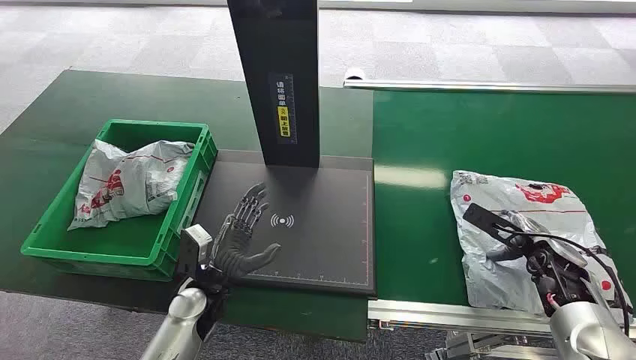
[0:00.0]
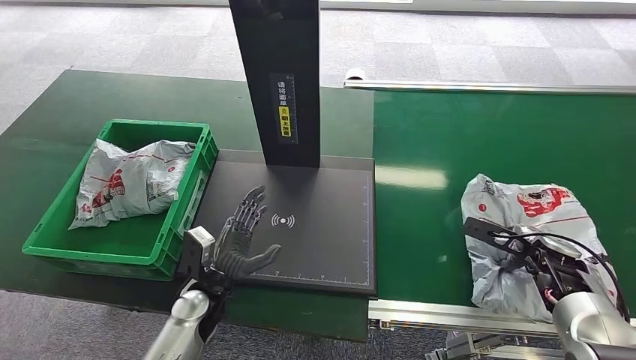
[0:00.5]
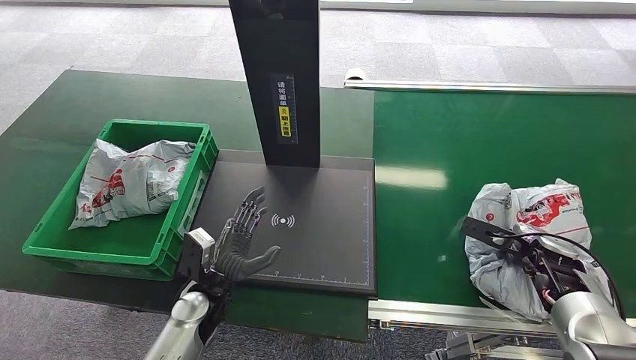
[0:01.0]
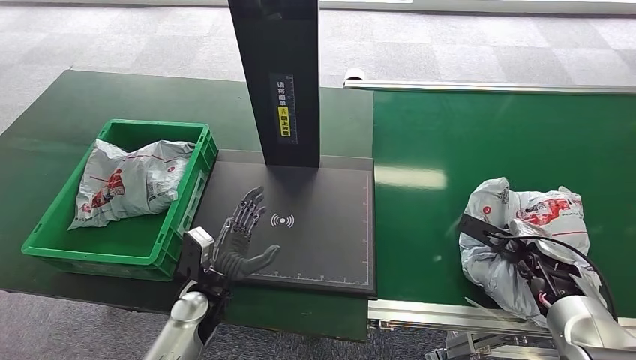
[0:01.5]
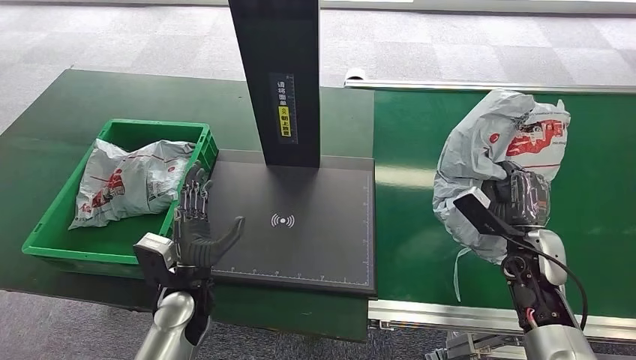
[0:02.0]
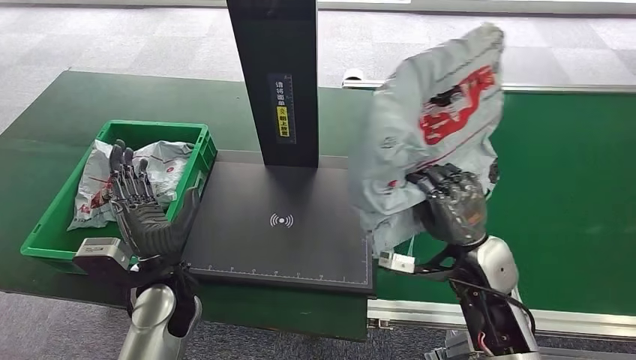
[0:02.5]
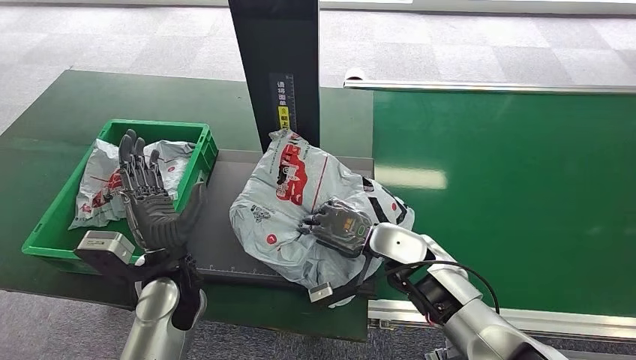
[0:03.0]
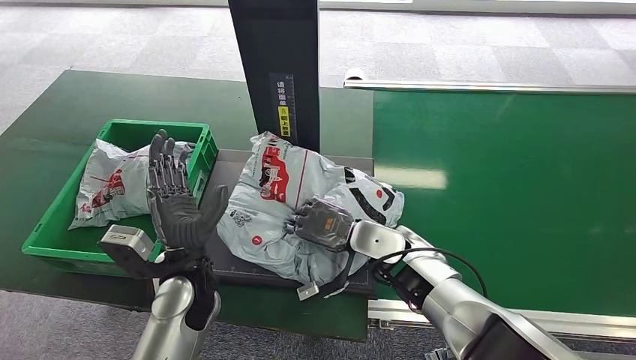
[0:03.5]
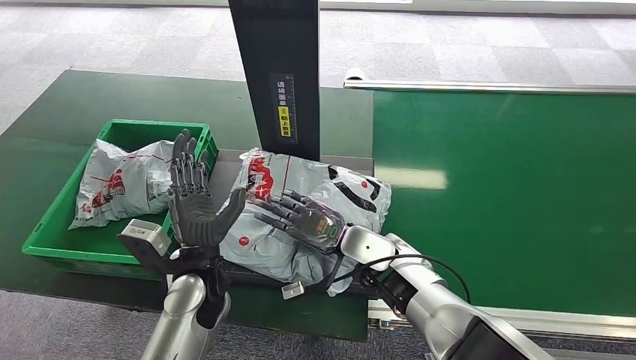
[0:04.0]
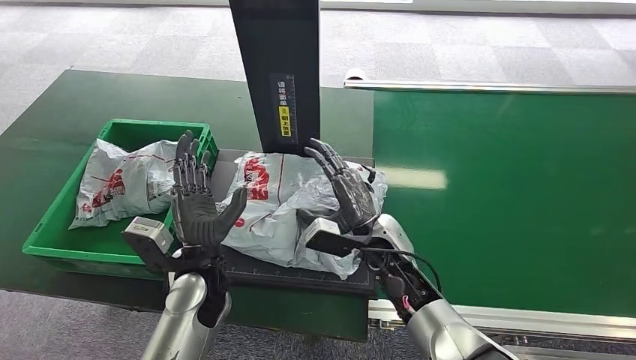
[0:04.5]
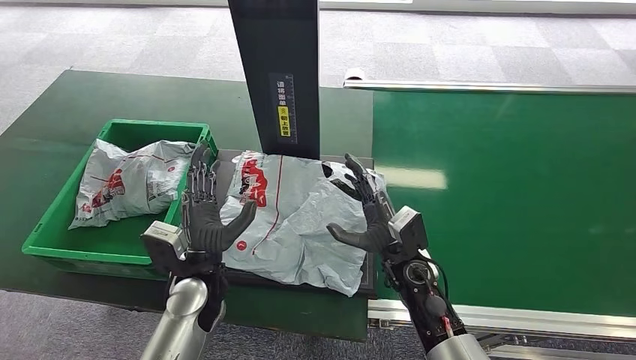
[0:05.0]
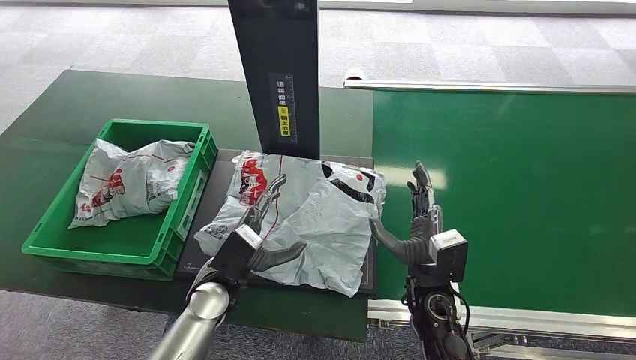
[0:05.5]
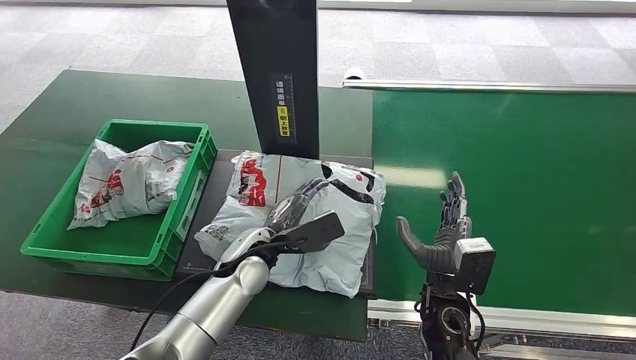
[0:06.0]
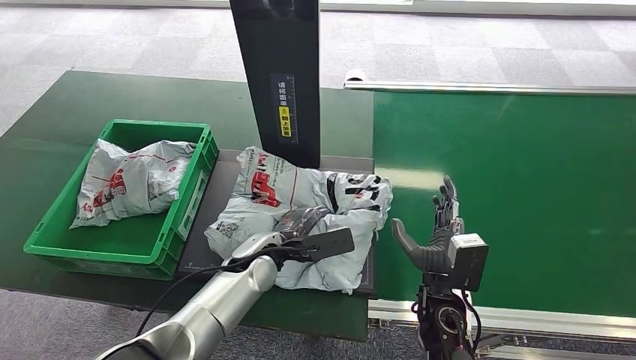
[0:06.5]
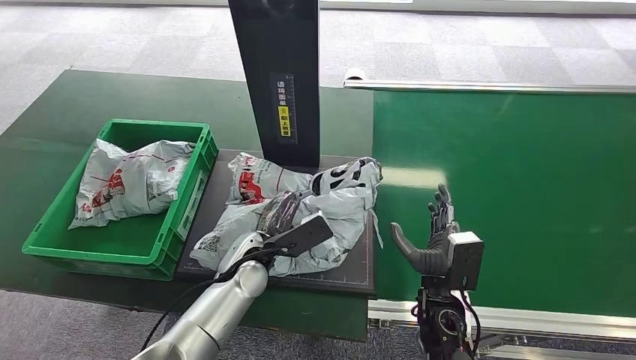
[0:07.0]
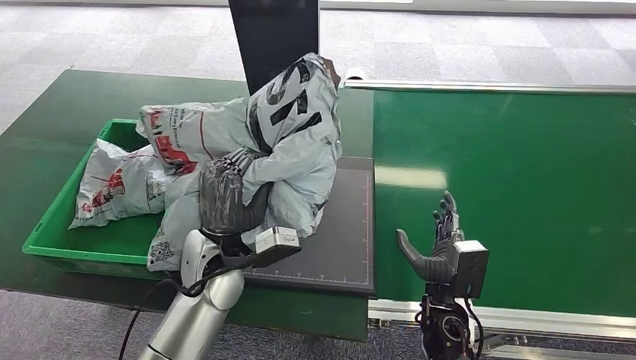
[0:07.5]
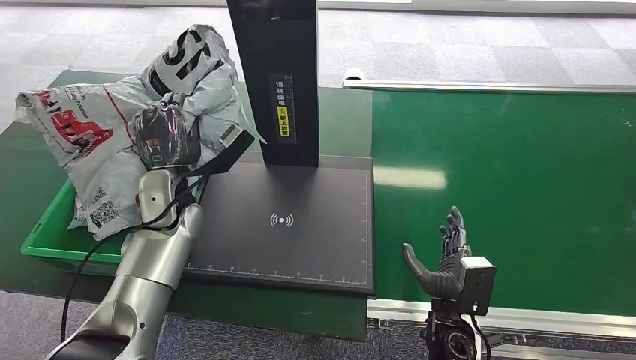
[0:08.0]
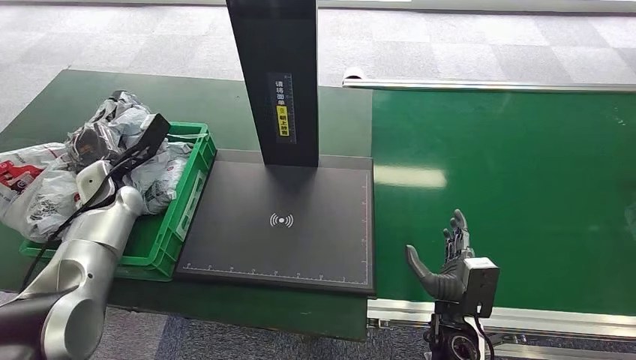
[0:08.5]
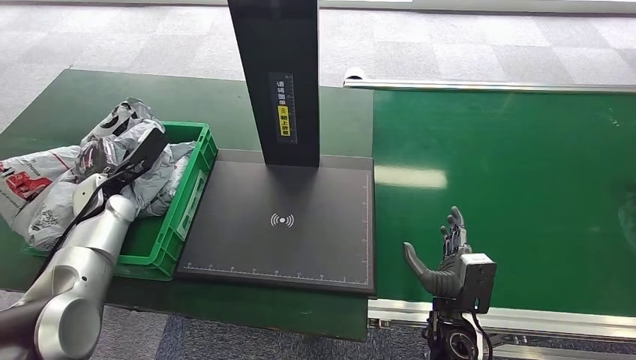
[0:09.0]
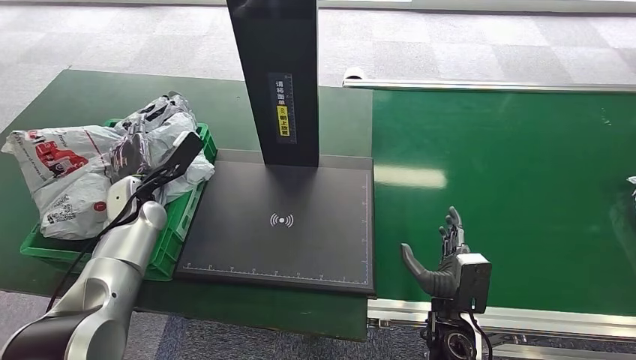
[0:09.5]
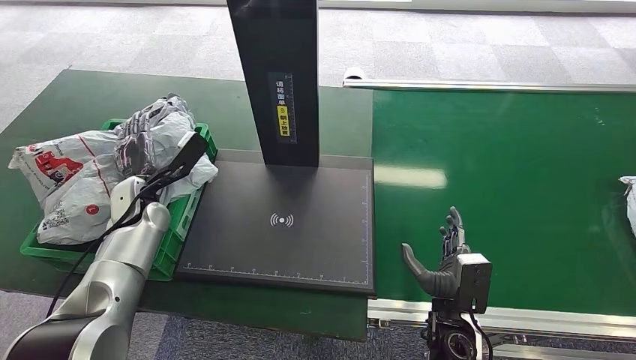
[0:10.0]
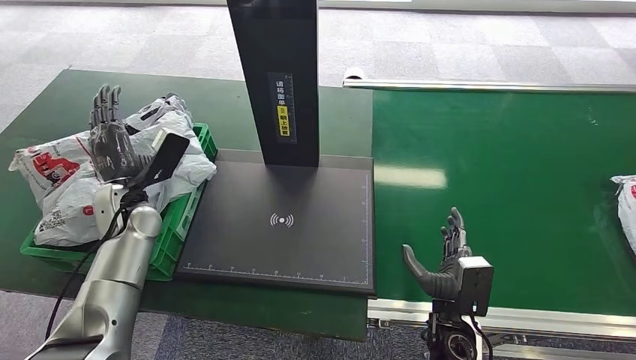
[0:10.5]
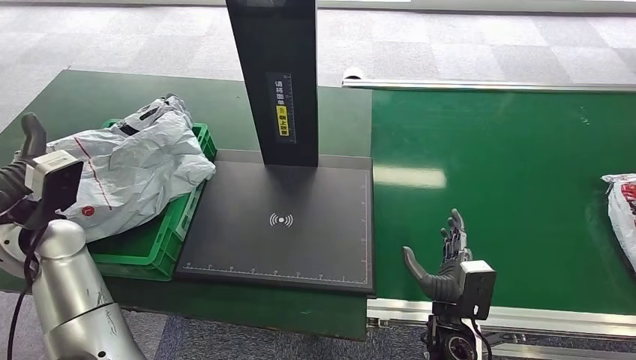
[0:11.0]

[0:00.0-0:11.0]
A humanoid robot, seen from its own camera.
Step, 0:00.0 to 0:02.0: Pick up the package from the conveyor belt.
Step, 0:02.5 to 0:05.0: Place the package onto the inbound machine.
Step, 0:05.5 to 0:07.5: Pick up the package from the inbound machine.
Step, 0:08.0 to 0:11.0: Place the package into the parcel locker.
0:03.5 to 0:05.5: The right hand moves backward and to the right, about 10 cm; the left hand travels downward by roughly 5 cm.
0:05.5 to 0:07.5: The left hand is displaced upward by roughly 10 cm.
0:09.0 to 0:11.0: The left hand goes roughly 15 cm upward and backward.

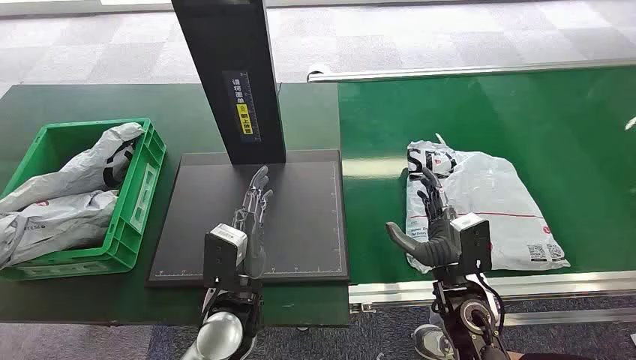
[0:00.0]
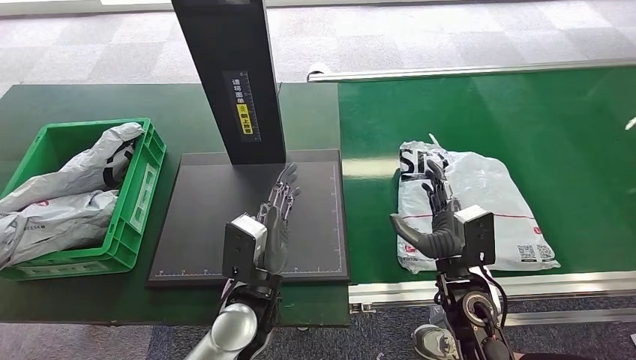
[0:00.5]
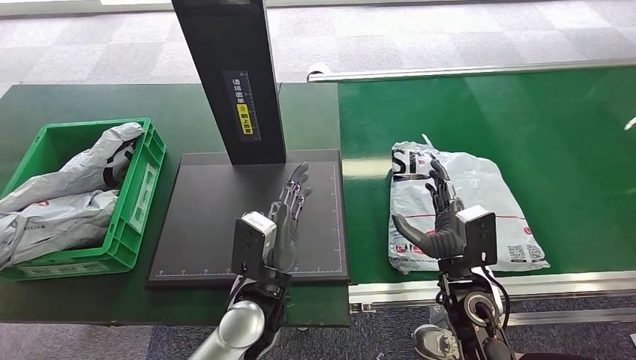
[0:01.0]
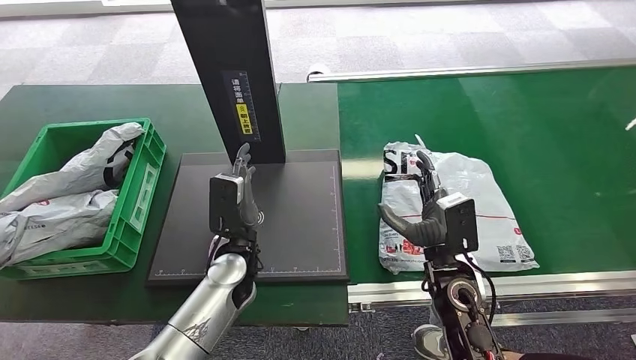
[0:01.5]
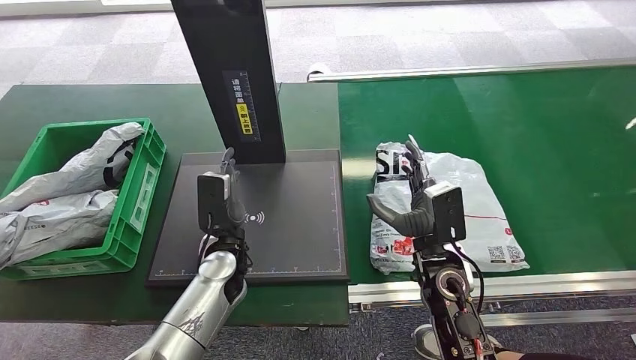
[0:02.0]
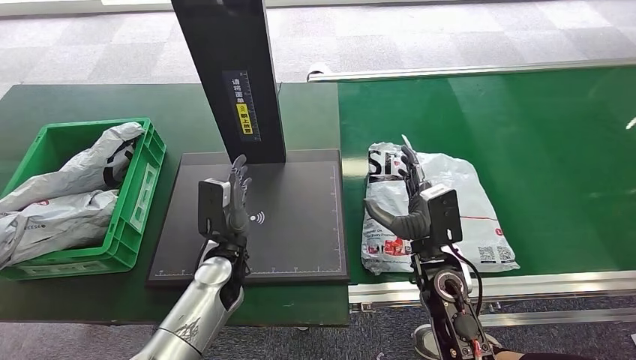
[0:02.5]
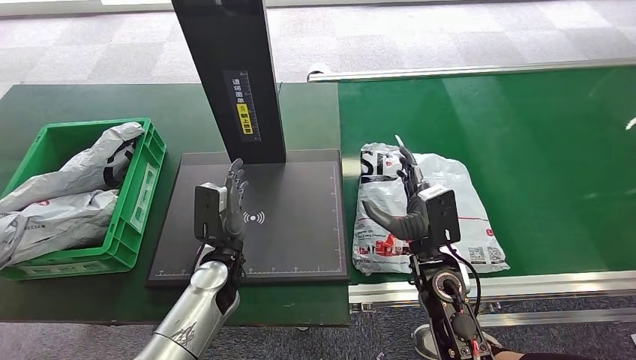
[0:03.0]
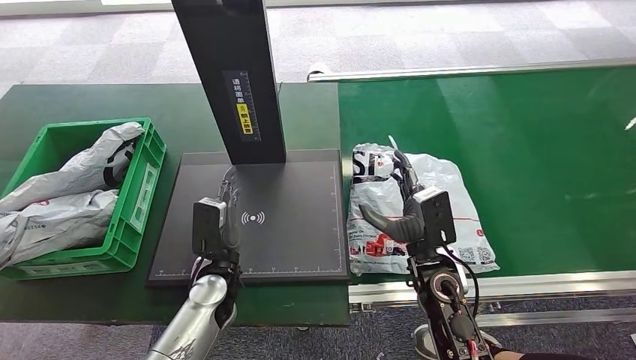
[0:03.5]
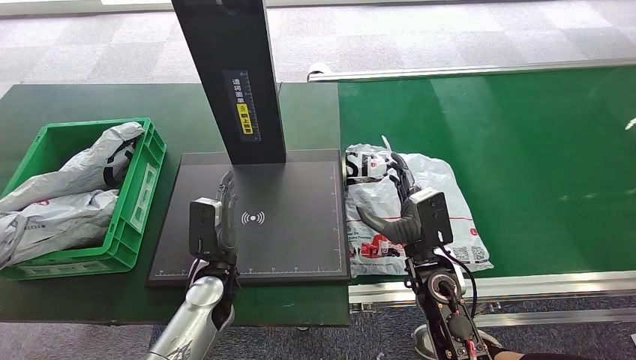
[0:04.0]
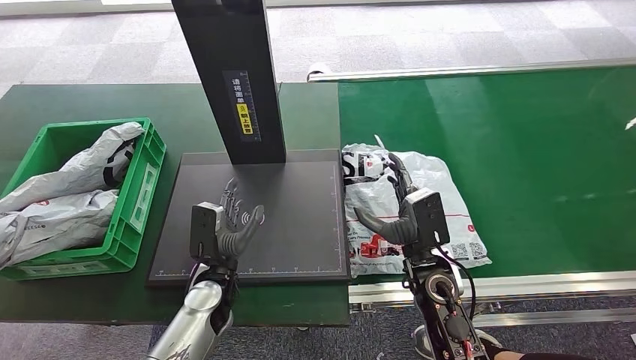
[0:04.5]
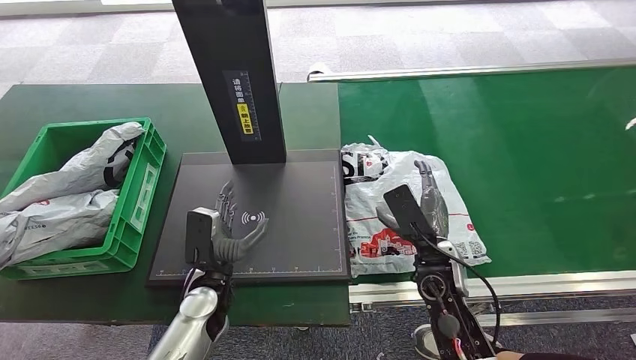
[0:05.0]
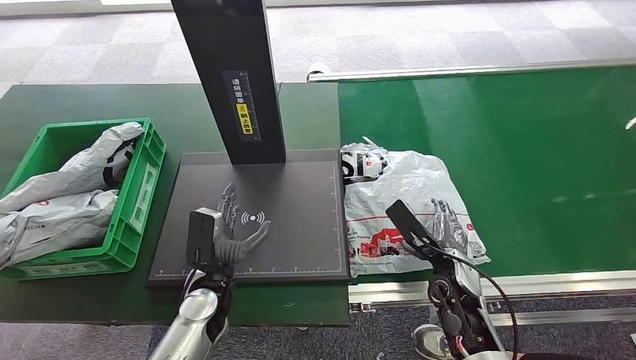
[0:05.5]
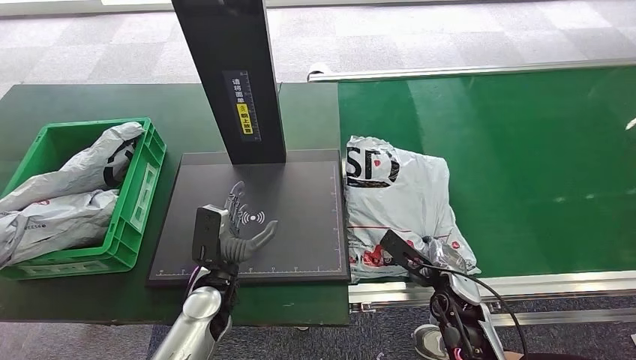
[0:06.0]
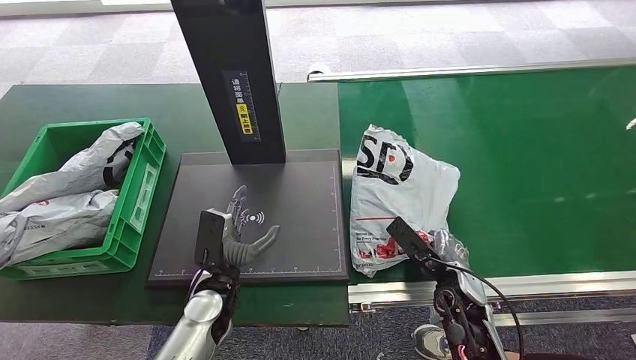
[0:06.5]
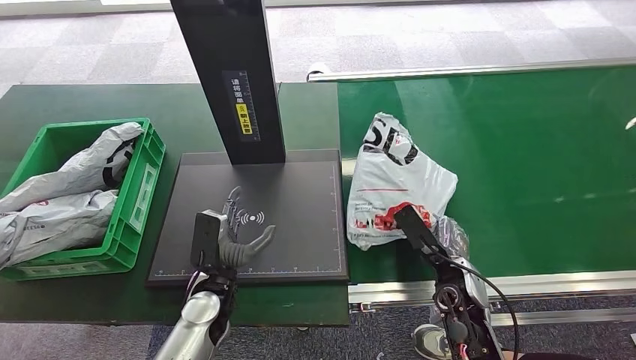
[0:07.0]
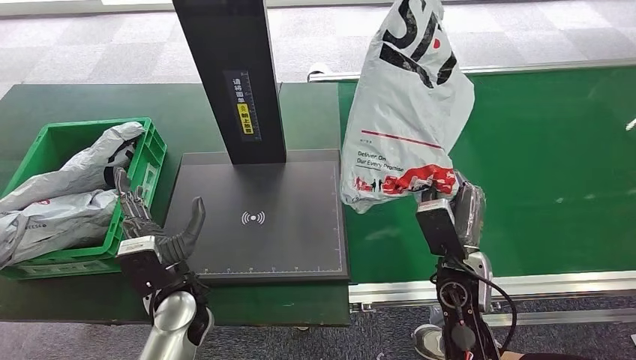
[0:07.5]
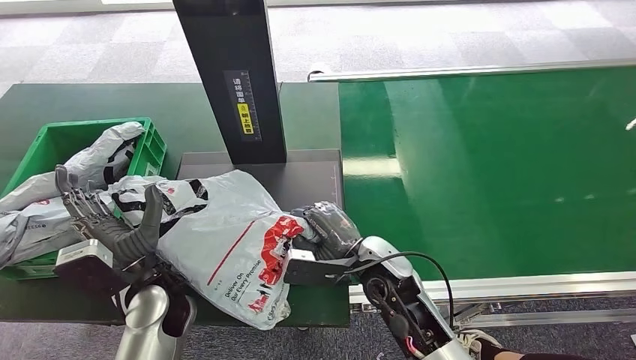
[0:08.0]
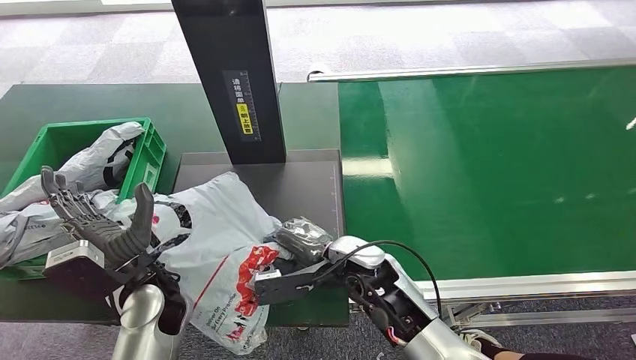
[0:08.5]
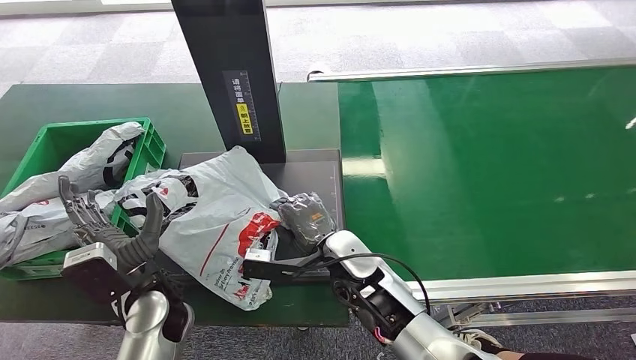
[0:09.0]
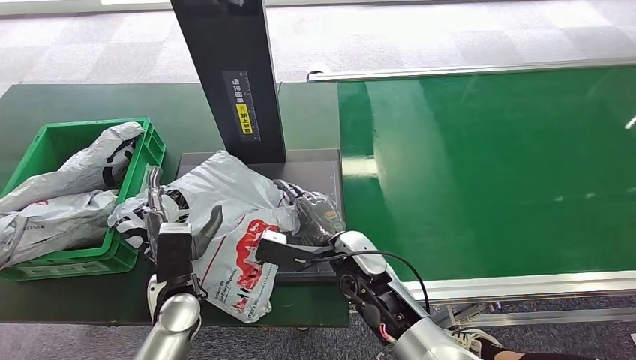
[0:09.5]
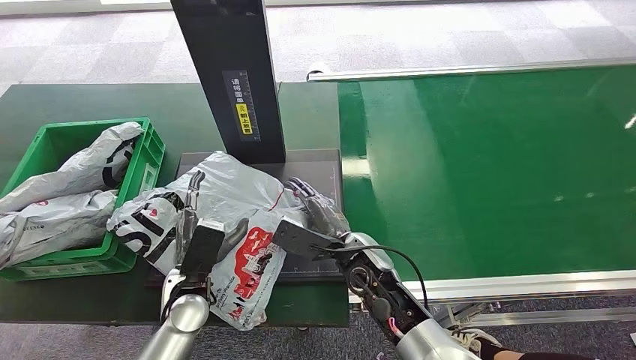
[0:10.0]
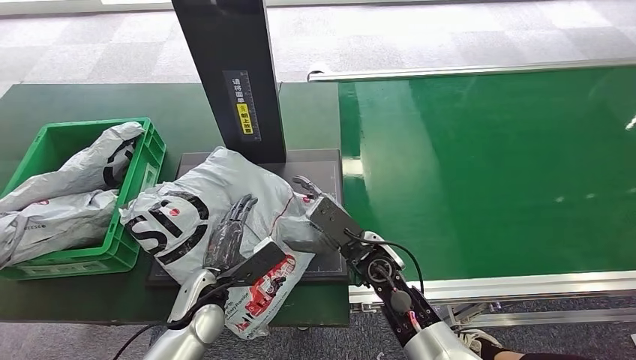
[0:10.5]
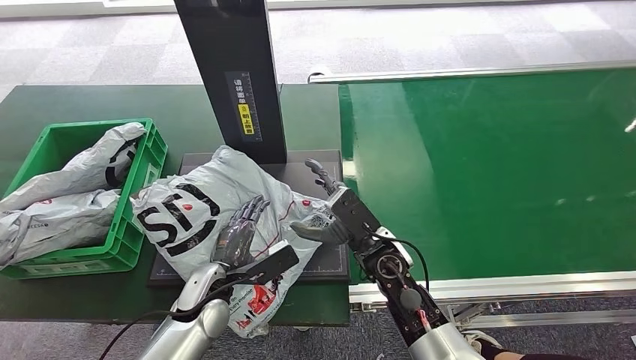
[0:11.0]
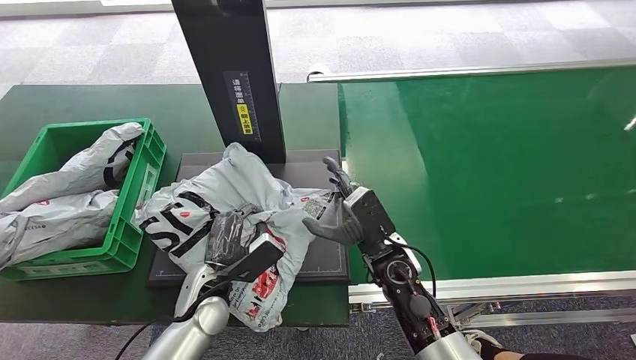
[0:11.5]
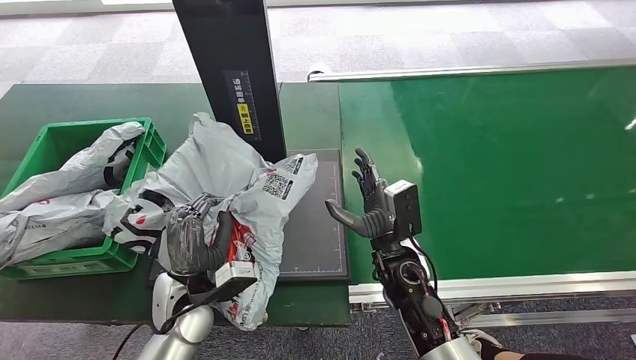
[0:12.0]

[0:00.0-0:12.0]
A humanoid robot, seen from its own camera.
Step, 0:00.0 to 0:07.5: Pick up the package from the conveyor belt.
Step, 0:08.0 to 0:10.0: Place the package onto the inbound machine.
0:02.0 to 0:04.0: The left hand shifts by roughly 5 cm.
0:04.0 to 0:06.0: The right hand travels downward and to the right by some 10 cm.
